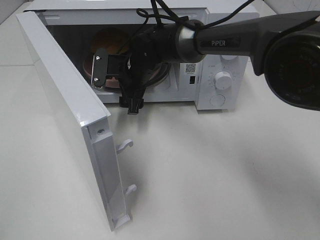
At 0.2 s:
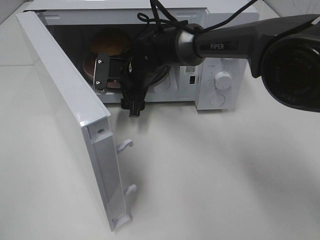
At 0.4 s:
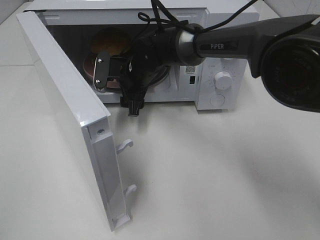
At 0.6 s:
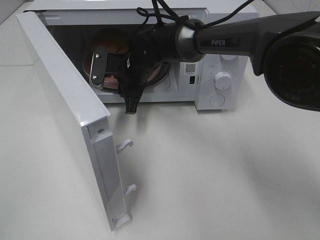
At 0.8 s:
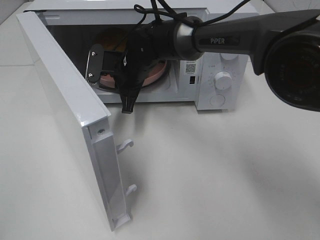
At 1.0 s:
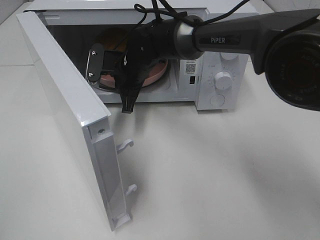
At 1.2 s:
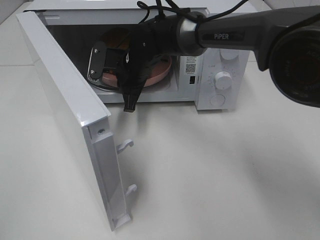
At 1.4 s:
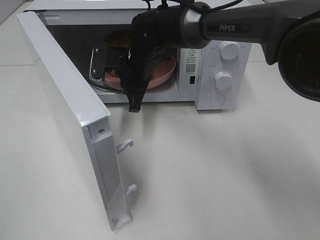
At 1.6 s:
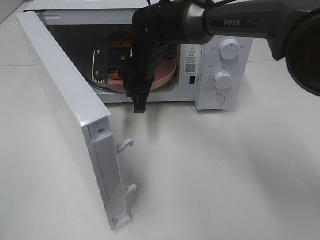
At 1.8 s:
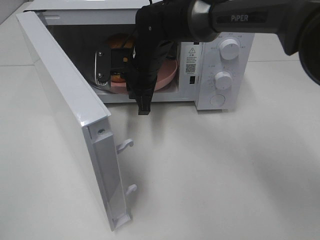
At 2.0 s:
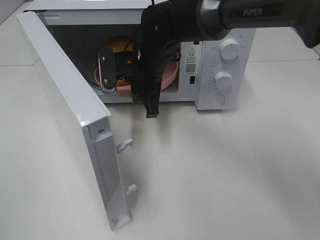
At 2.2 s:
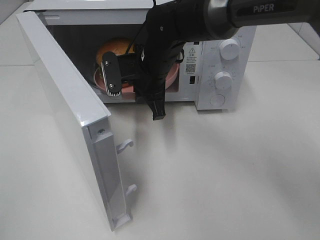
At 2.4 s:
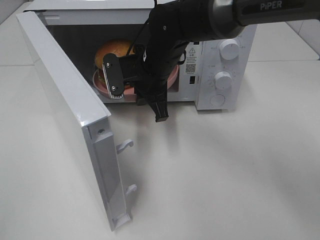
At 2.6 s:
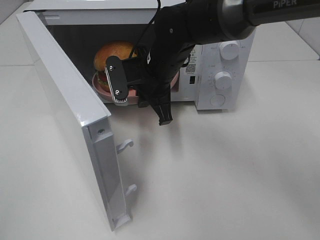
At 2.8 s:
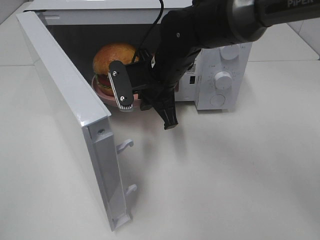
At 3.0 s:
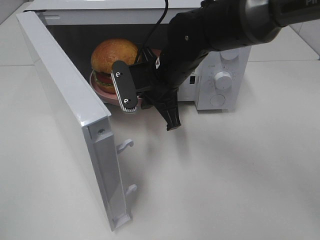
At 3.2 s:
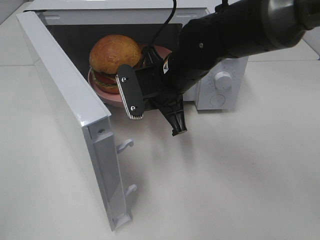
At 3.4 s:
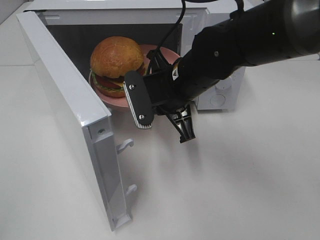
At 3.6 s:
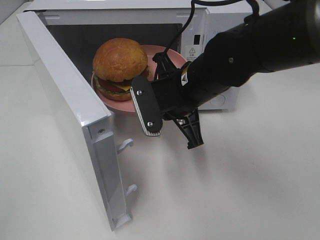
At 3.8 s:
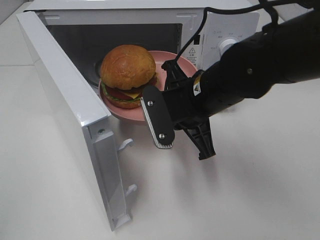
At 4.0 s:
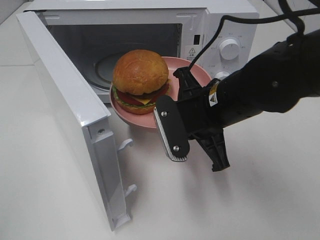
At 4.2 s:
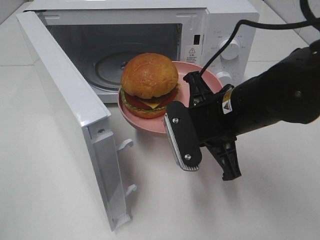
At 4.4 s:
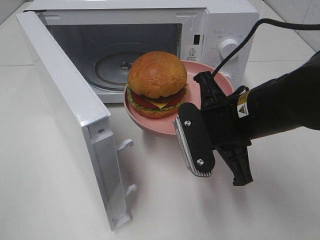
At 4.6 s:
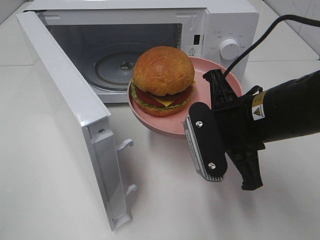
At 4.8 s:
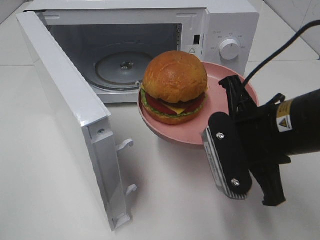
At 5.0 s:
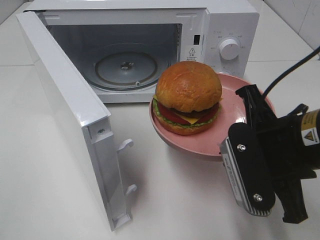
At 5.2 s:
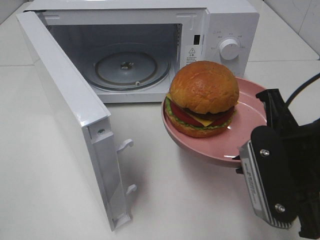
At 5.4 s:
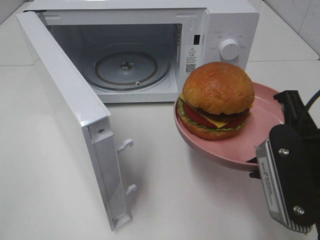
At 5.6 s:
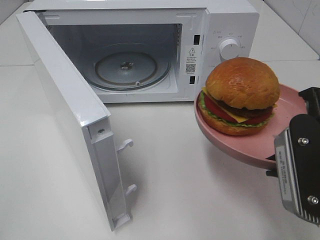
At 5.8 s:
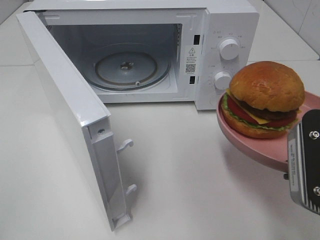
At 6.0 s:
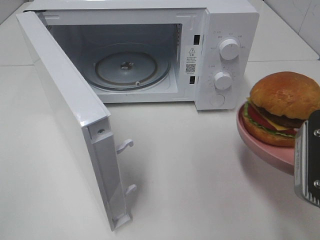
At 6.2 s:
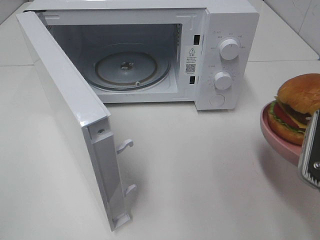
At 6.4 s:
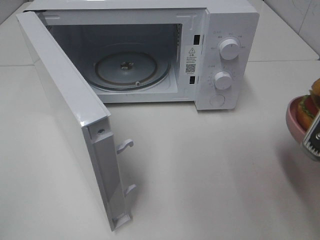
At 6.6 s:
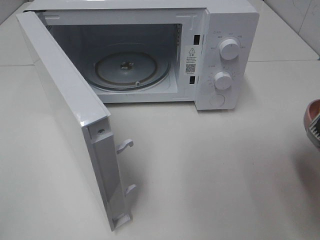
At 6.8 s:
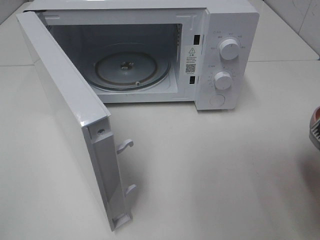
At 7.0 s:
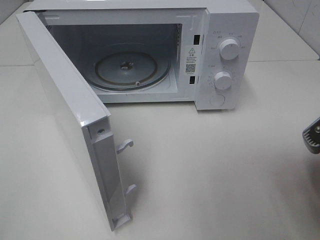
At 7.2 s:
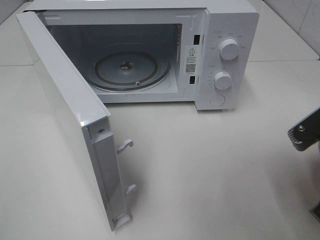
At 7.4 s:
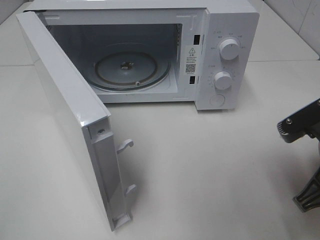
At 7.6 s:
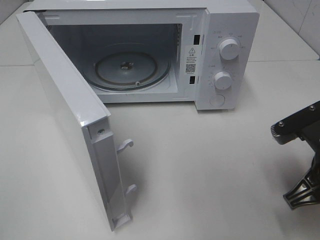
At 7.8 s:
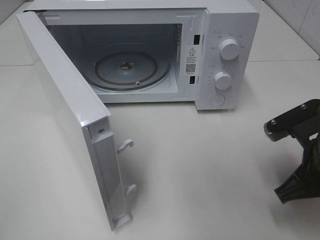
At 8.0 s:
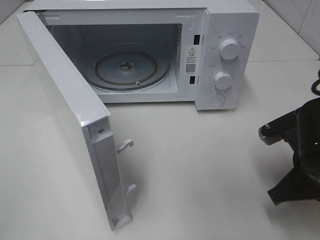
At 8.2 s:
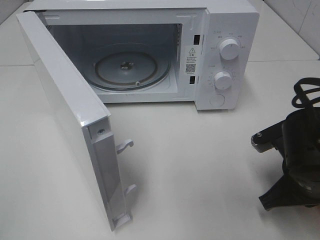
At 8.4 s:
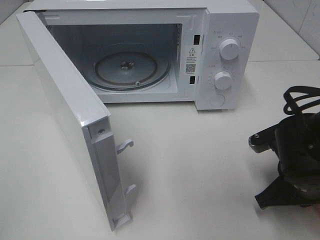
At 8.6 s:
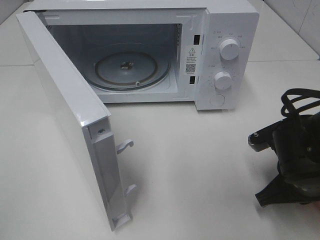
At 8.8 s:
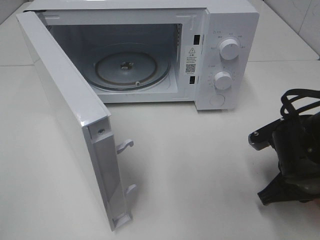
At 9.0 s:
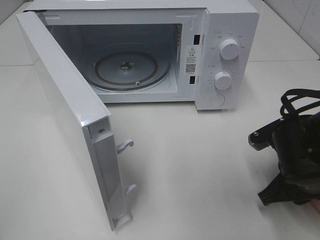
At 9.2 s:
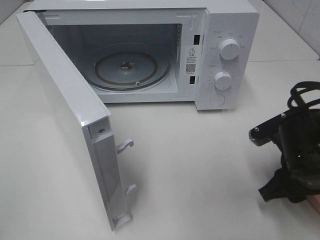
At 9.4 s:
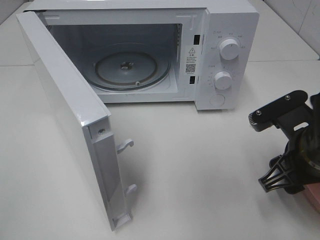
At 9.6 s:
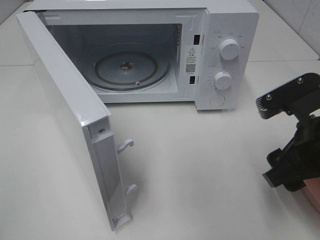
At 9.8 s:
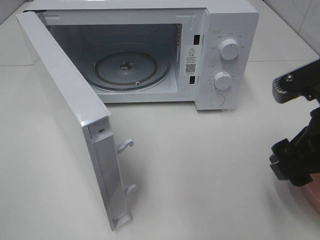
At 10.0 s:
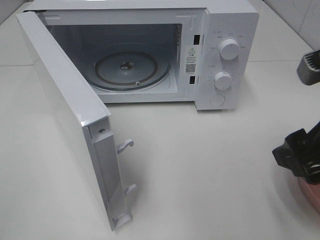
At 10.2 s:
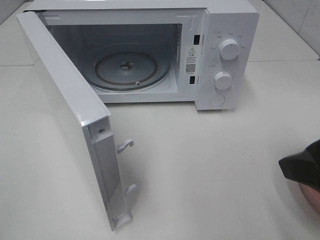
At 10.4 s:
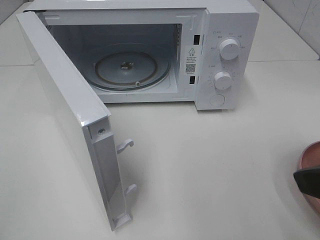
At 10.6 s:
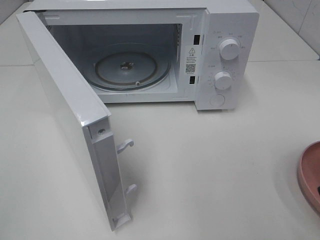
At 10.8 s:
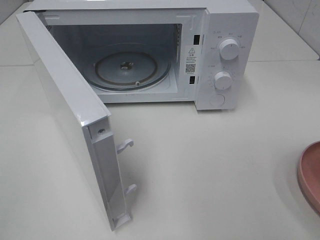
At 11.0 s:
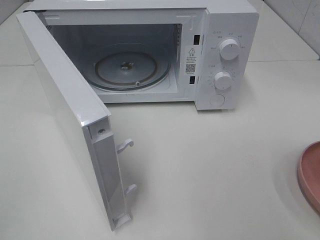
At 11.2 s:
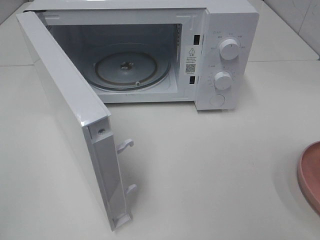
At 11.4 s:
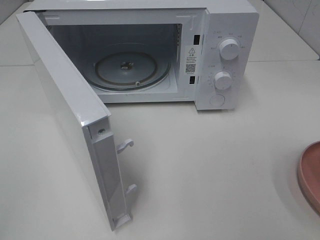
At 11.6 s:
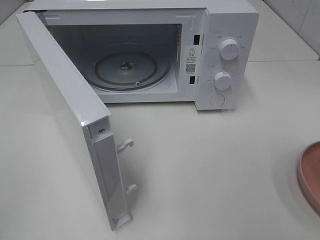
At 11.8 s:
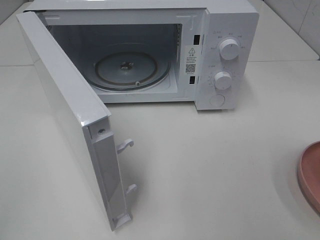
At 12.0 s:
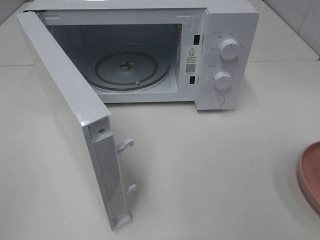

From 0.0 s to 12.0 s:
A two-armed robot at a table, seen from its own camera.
Task of the whole recording: Heat the burger.
Step, from 0.8 s to 9.0 s: Right hand: place the plate on the table.
From 0.0 s to 1.6 s: The right gripper closes.
From 1.6 s to 3.0 s: The right gripper moves backward, roughly 5 cm.
From 3.0 s to 4.4 s: The right gripper heads backward and to the right, covering roughly 15 cm.
From 4.4 s to 6.0 s: The right gripper goes some 15 cm to the right and backward.
From 6.0 s to 7.6 s: The right gripper travels downward by roughly 5 cm.
From 7.6 s to 9.0 s: The right gripper shifts about 5 cm downward.
From 9.0 s to 10.4 s: The right gripper moves upward and backward, approximately 20 cm, and opens its fingers.
From 10.4 s to 12.0 s: The right gripper heads backward and to the right, covering approximately 10 cm.

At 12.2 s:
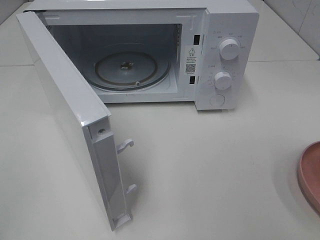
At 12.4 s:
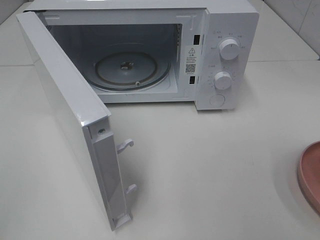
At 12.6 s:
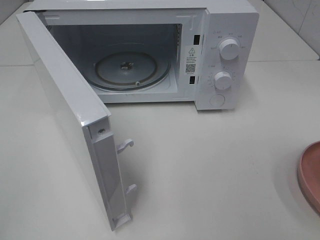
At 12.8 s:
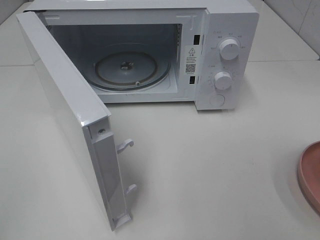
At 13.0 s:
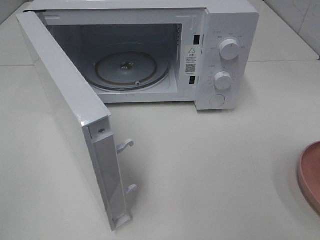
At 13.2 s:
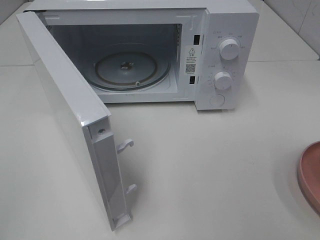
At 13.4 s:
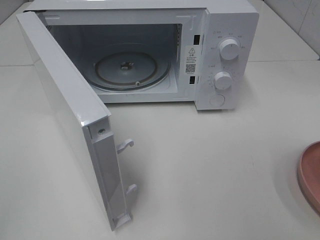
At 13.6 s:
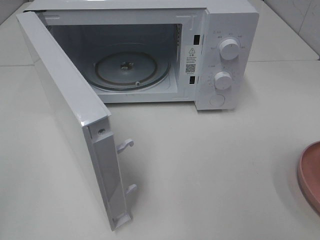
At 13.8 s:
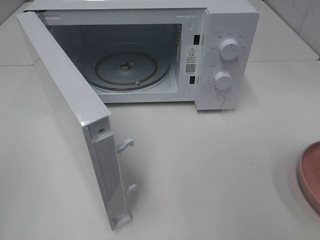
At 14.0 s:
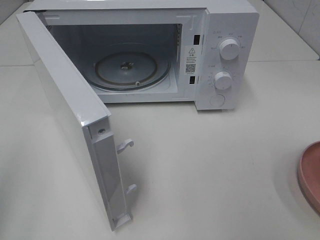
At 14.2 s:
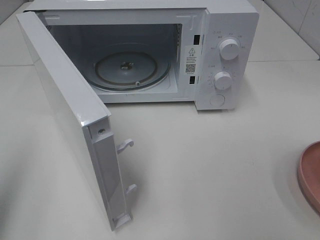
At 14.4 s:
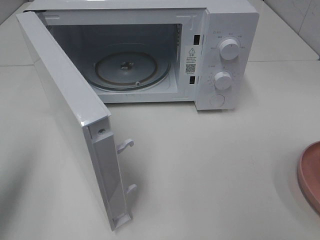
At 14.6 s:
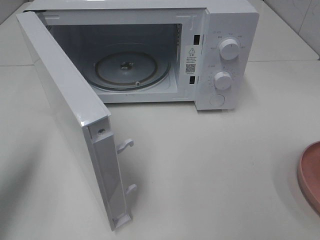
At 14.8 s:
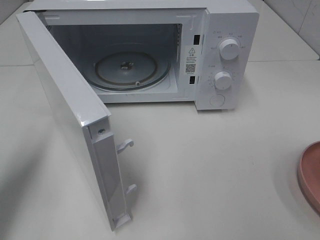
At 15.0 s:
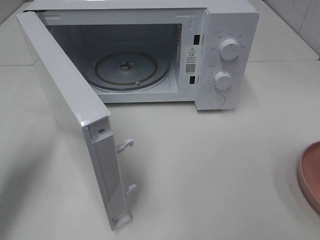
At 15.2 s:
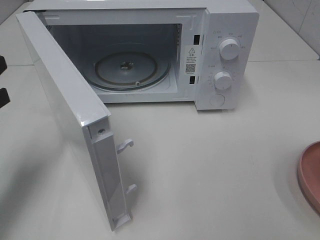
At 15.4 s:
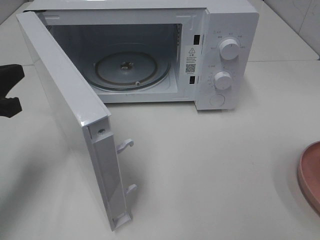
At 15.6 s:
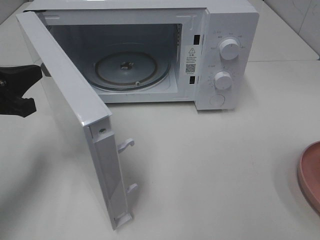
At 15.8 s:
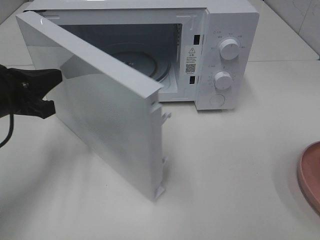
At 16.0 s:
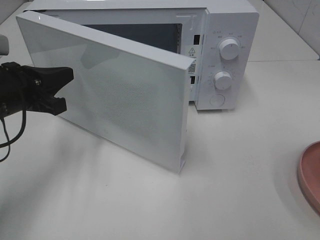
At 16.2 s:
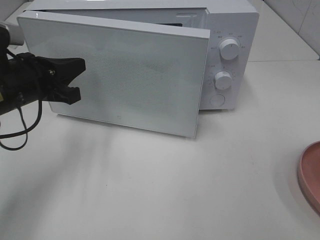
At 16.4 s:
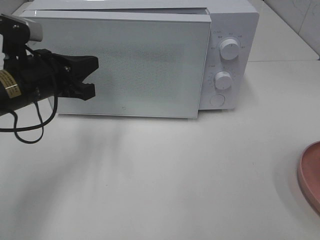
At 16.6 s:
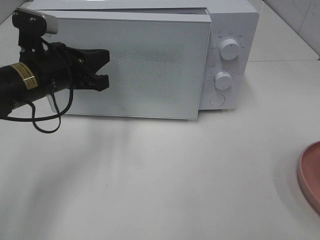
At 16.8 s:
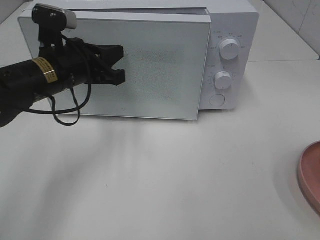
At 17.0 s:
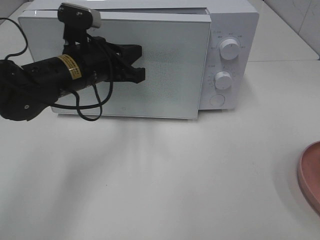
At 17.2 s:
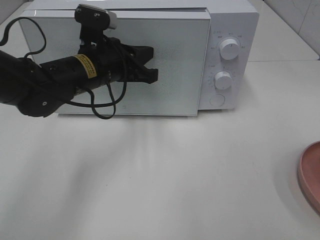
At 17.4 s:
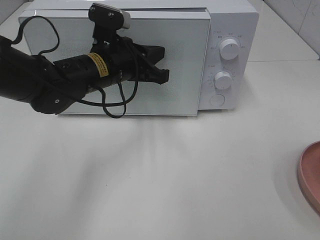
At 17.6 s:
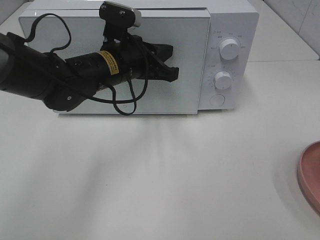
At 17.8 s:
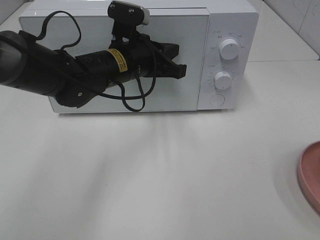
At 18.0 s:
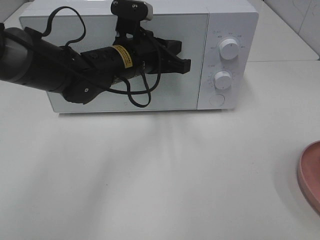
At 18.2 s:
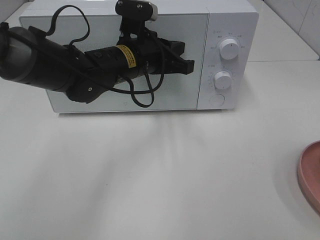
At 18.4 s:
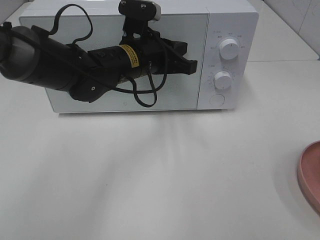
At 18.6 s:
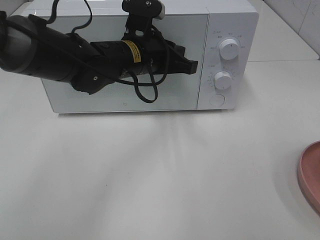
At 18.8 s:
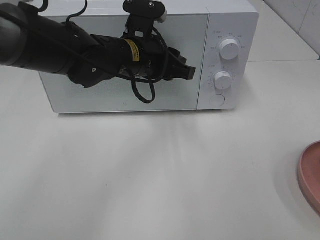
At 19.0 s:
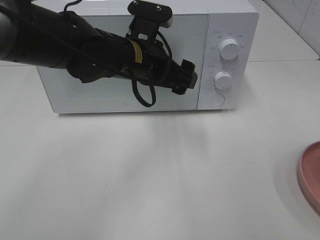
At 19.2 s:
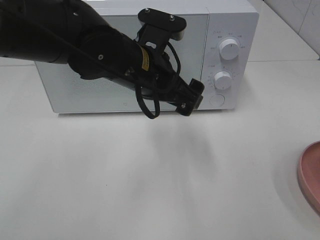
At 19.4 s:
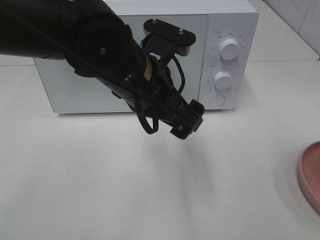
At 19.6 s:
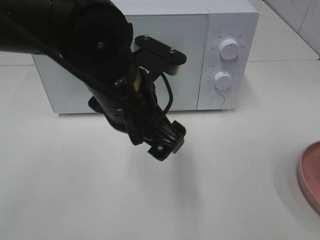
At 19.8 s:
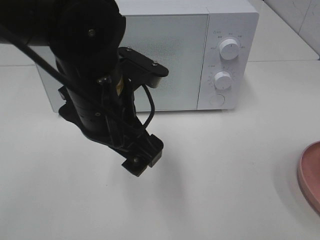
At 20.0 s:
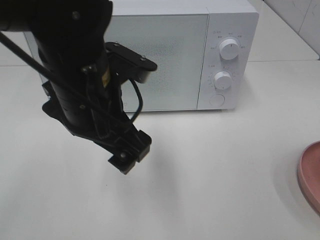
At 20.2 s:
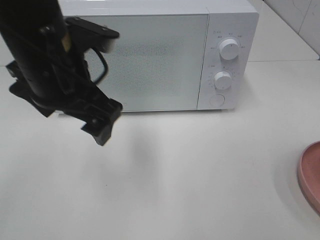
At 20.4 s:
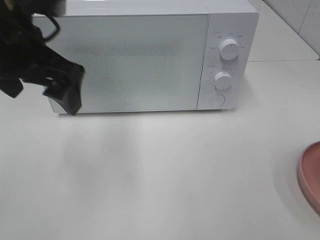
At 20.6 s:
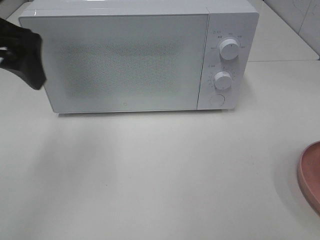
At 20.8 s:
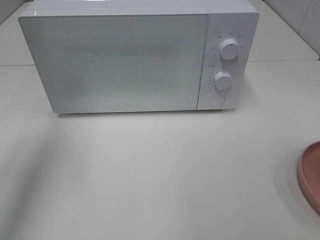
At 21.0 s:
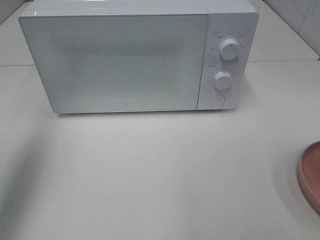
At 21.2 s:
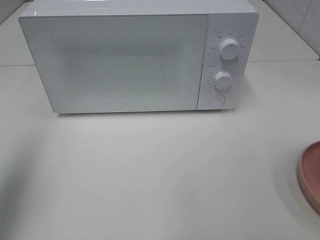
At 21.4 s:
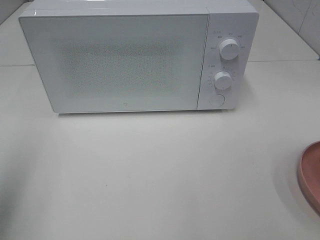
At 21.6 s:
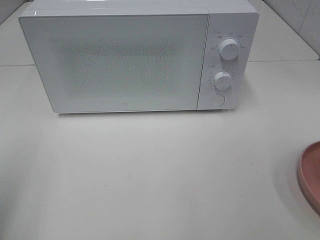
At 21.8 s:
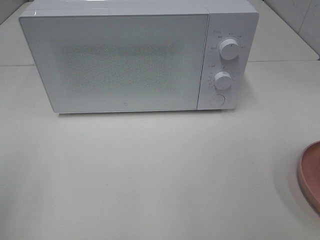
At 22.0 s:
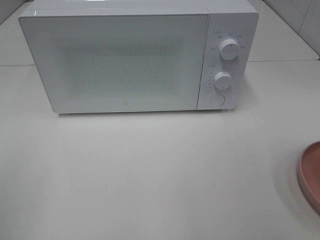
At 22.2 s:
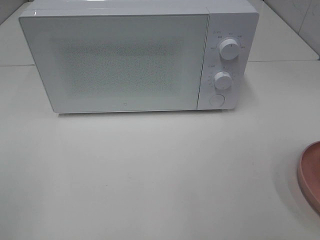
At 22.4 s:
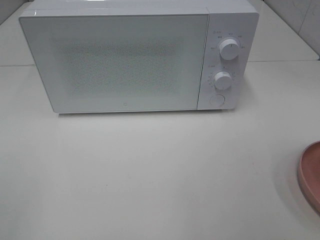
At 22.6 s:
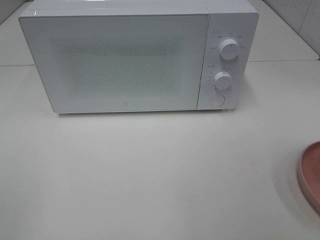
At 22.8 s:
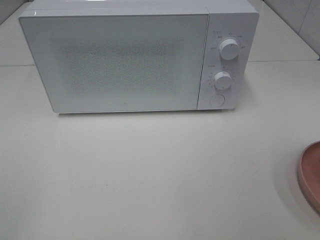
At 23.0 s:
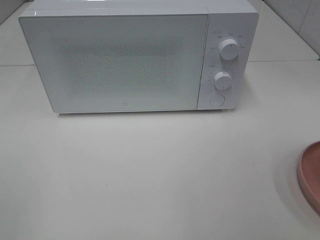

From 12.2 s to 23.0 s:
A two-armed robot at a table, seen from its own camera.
Task of the whole recording: Heat the burger.
Step, from 12.2 s to 18.0 s: Left hand: close the microwave door.
From 13.8 s to 15.2 s: The left gripper moves forward and downward, some 25 cm.
From 15.2 s to 16.8 s: The left gripper moves to the right and forward, roughly 15 cm.
From 16.8 s to 18.4 s: The left gripper travels to the right by approximately 10 cm.
From 18.4 s to 20.0 s: The left gripper travels backward and upward by approximately 15 cm, and opens its fingers.
From 20.0 s to 21.4 s: The left gripper moves to the left, some 25 cm.
From 21.4 s to 23.0 s: The left gripper moves backward, about 15 cm.
